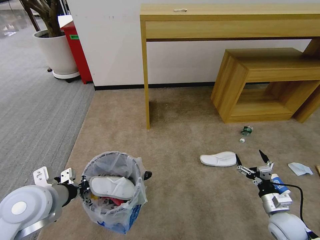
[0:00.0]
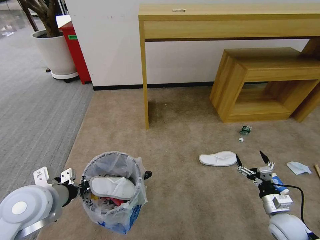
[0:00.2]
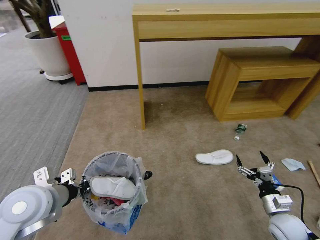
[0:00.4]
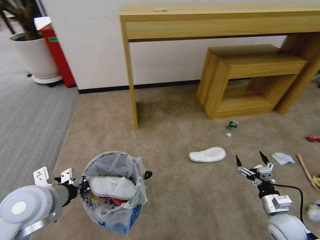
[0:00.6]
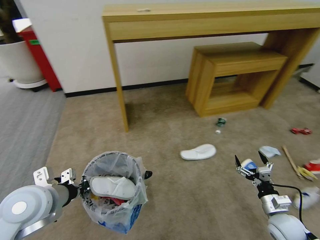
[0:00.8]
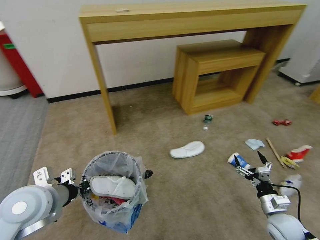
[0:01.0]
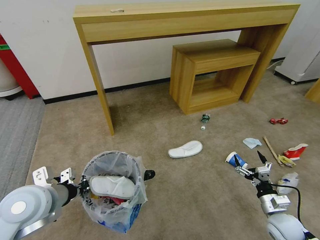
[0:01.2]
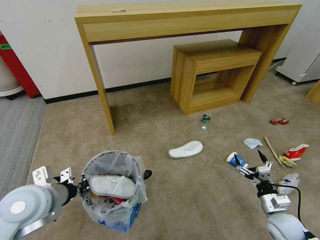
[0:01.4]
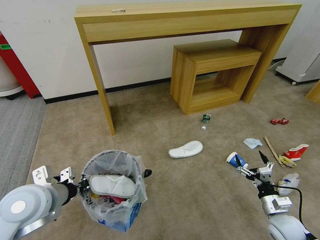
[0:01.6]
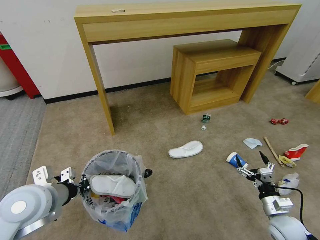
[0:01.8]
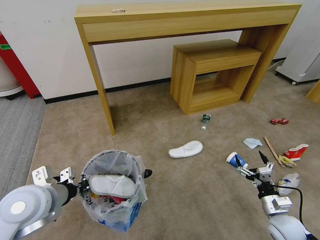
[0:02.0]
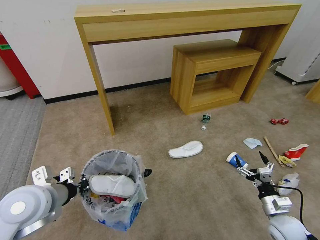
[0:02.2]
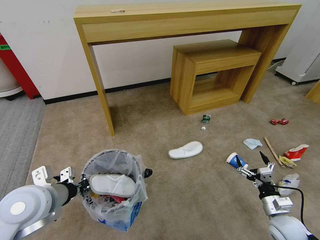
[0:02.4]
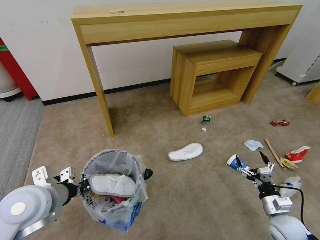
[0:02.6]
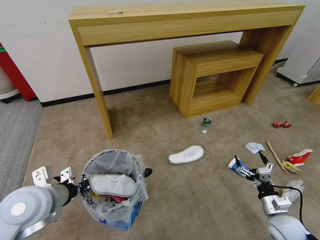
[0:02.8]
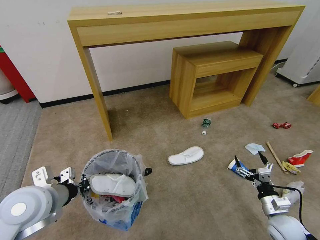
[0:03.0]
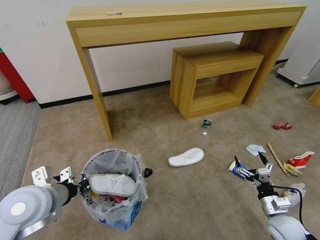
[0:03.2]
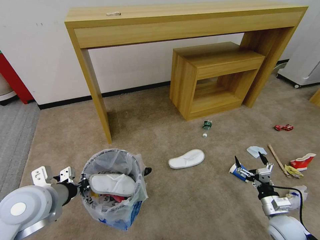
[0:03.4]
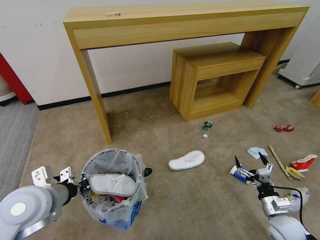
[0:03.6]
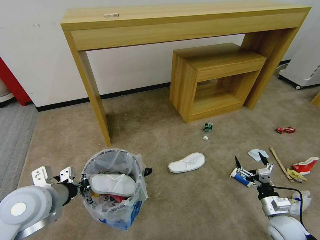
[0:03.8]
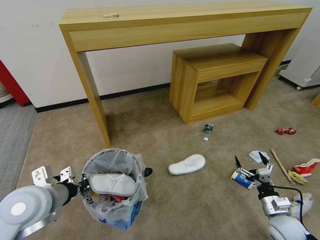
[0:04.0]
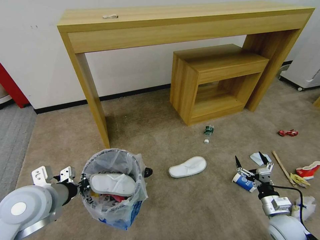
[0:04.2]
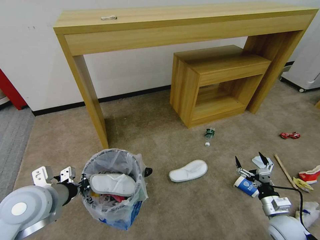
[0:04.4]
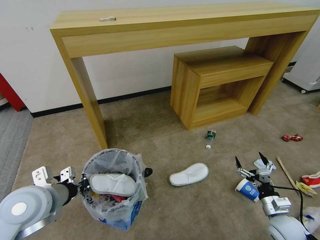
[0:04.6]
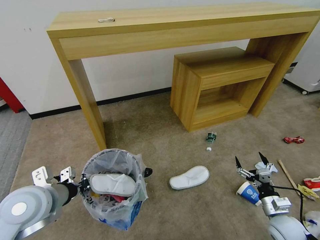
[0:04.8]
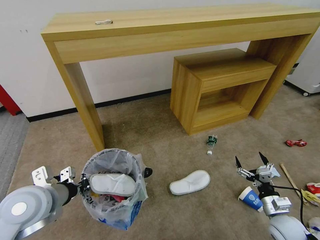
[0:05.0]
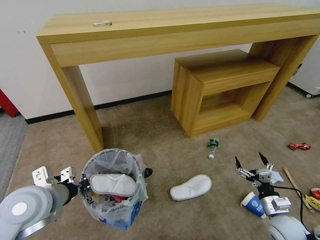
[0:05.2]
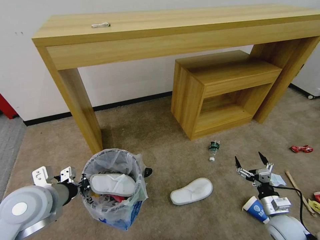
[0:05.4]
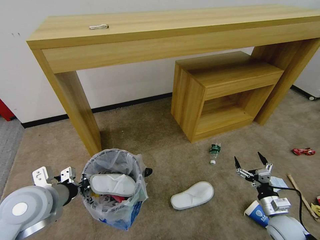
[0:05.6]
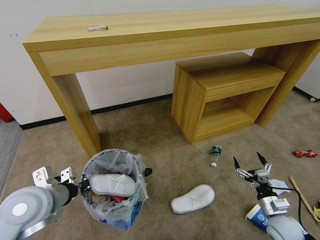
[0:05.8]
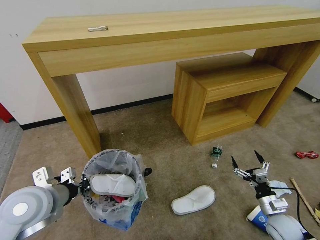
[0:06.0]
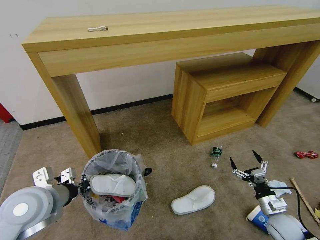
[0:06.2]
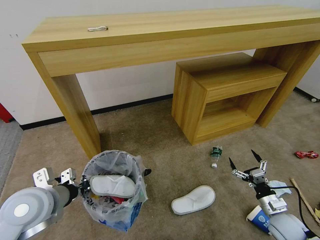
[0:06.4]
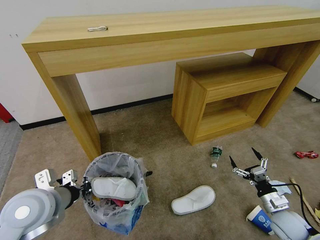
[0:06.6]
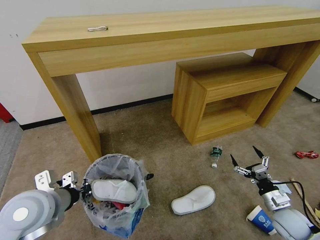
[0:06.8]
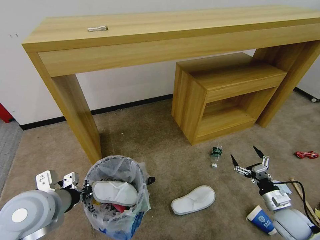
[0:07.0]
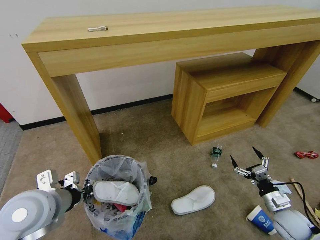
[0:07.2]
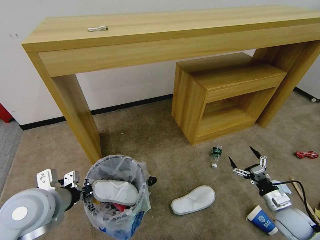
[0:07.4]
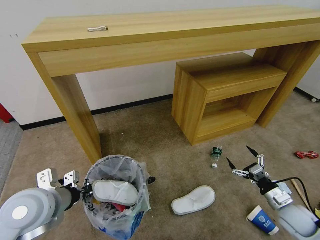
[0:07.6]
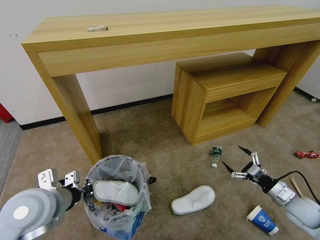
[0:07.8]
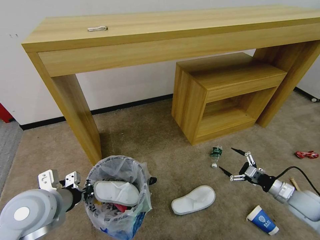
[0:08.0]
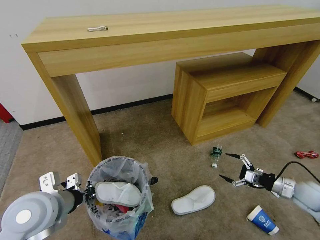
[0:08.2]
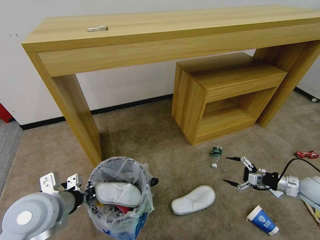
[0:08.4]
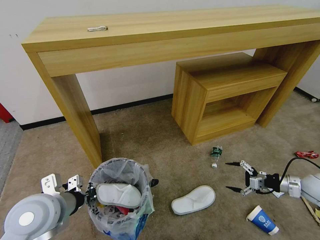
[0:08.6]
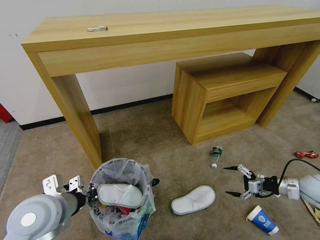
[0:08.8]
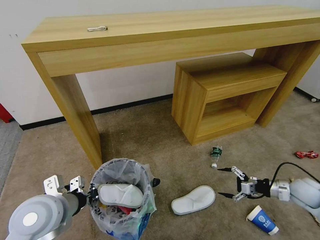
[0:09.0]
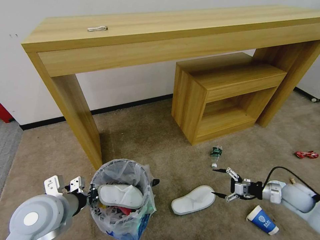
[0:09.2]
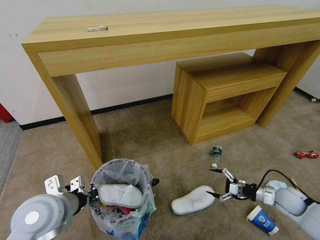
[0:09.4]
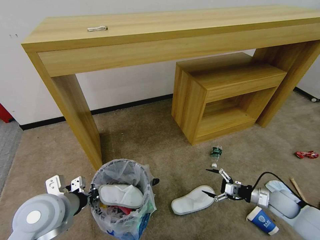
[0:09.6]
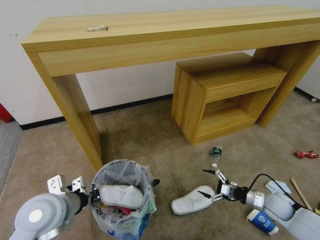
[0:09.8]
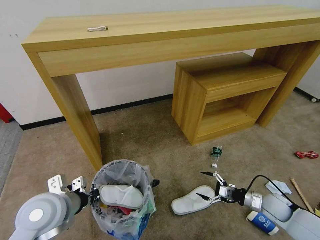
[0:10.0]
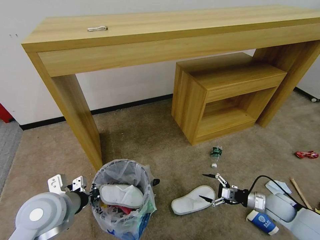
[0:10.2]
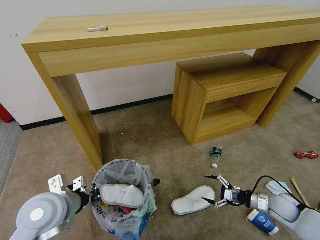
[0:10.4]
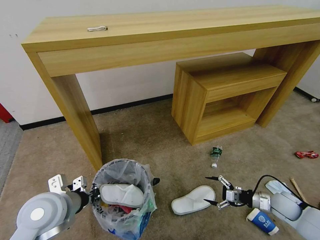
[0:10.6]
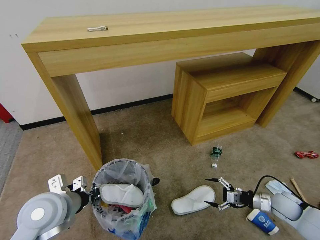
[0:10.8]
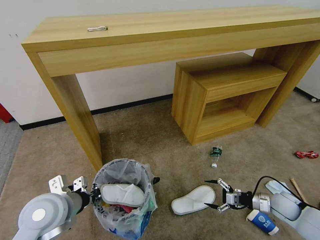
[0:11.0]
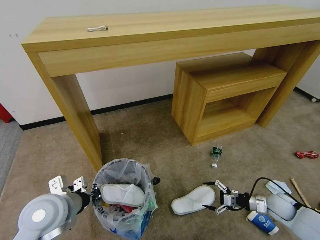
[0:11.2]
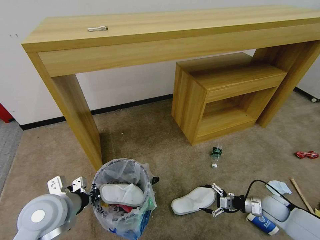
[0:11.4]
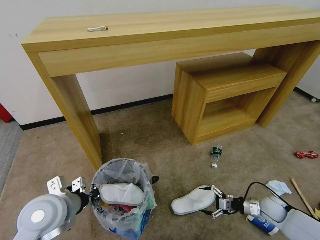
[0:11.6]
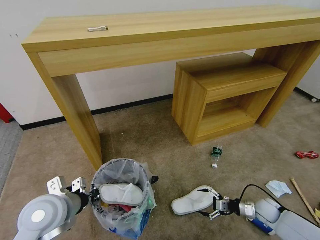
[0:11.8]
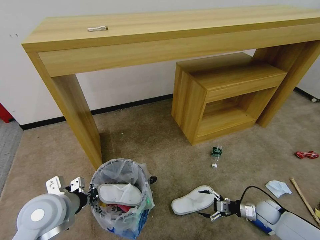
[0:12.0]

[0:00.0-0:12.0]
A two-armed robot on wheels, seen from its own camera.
Task of the whole recording: Pick up the trash bin and place the garbage on the floor into it.
0:01.6 to 0:03.0: Neither gripper changes place.
0:06.0 to 0:07.6: The right gripper ends up about 5 cm from where it was.
0:07.6 to 0:09.0: The right gripper heads forward, to the right and upward, covering roughly 10 cm.
0:09.0 to 0:10.4: The right gripper heads downward and to the left, covering approximately 10 cm.
0:10.4 to 0:12.0: The right gripper moves downward, approximately 10 cm.

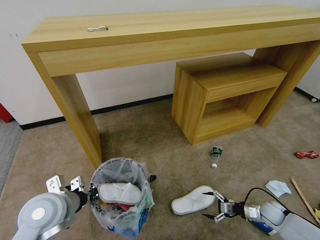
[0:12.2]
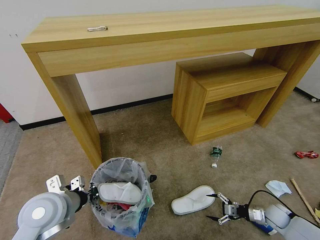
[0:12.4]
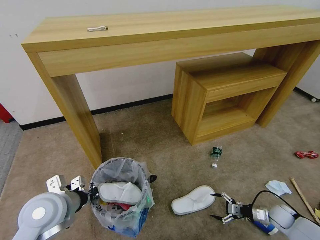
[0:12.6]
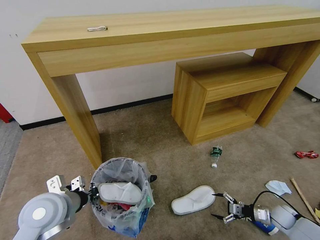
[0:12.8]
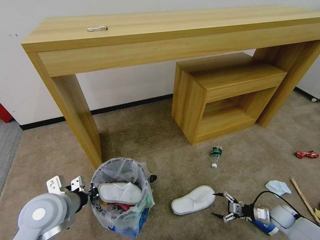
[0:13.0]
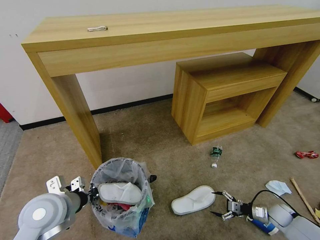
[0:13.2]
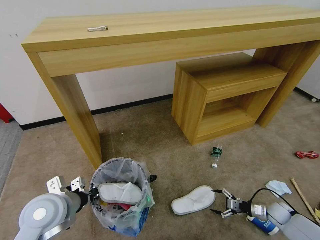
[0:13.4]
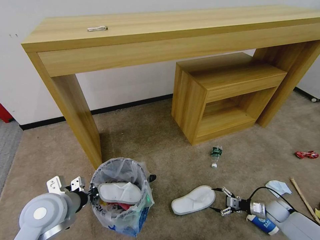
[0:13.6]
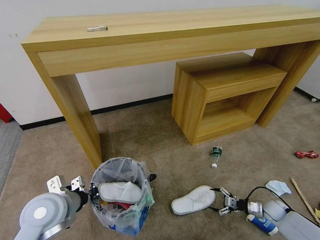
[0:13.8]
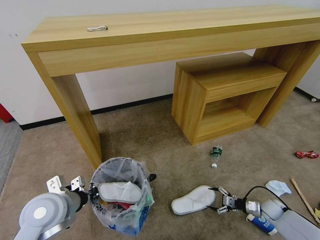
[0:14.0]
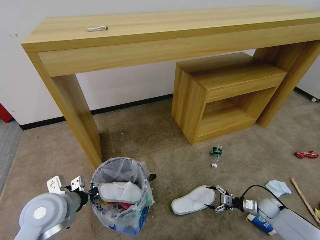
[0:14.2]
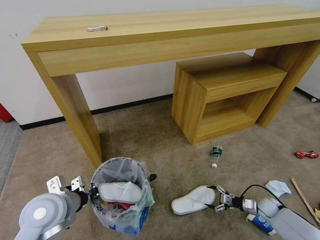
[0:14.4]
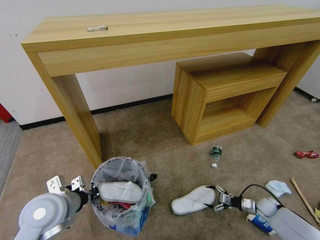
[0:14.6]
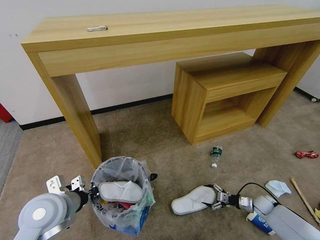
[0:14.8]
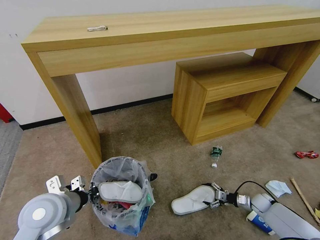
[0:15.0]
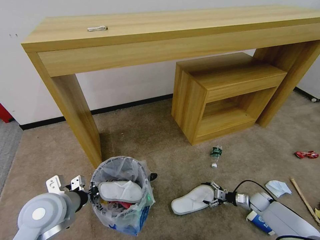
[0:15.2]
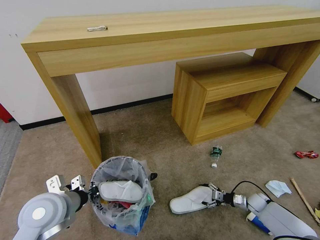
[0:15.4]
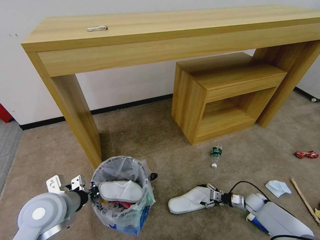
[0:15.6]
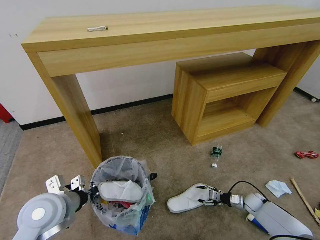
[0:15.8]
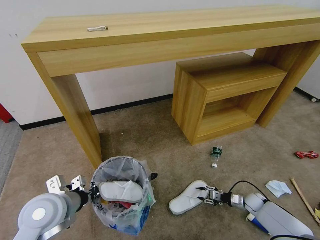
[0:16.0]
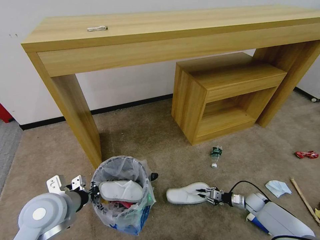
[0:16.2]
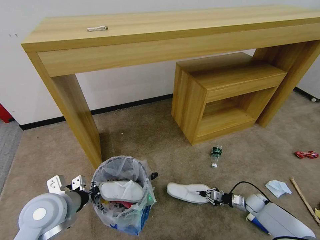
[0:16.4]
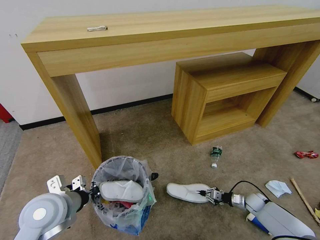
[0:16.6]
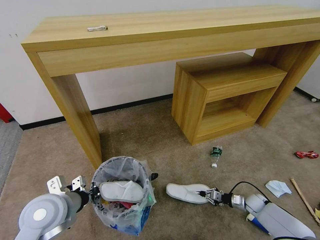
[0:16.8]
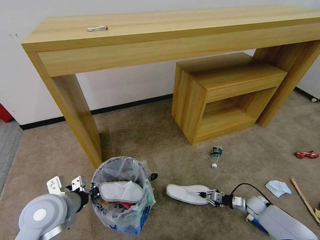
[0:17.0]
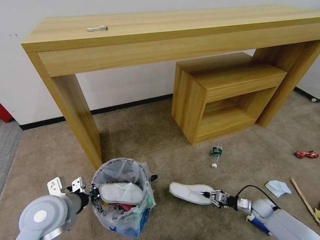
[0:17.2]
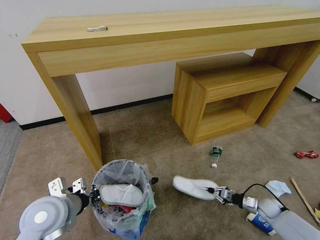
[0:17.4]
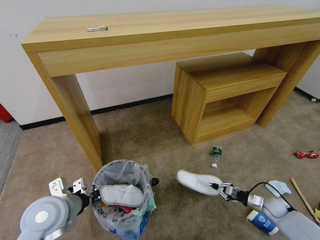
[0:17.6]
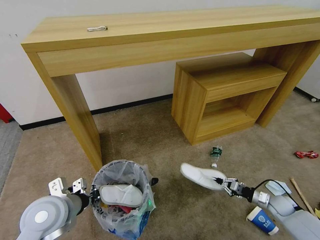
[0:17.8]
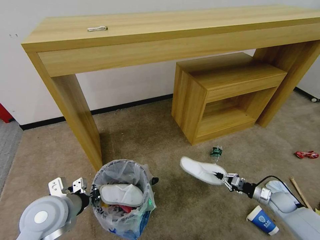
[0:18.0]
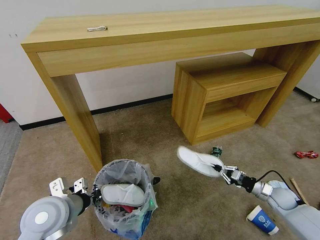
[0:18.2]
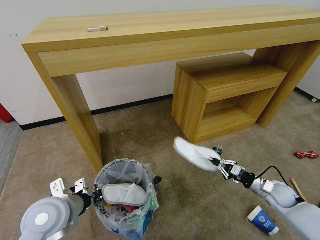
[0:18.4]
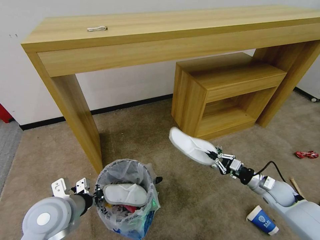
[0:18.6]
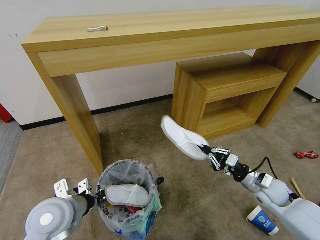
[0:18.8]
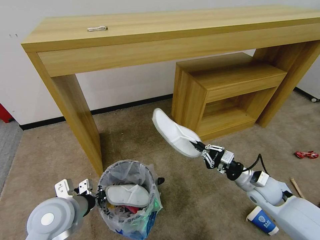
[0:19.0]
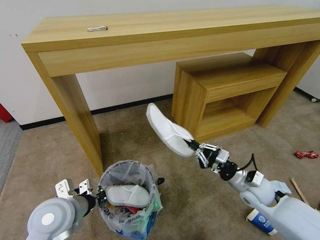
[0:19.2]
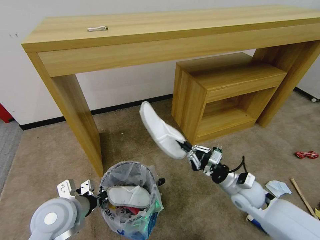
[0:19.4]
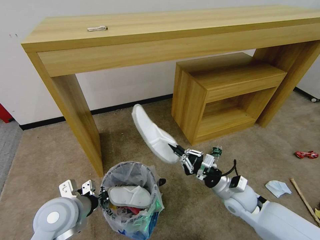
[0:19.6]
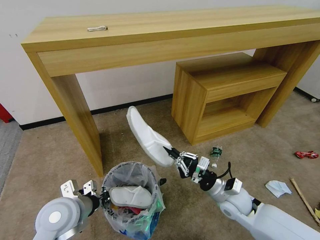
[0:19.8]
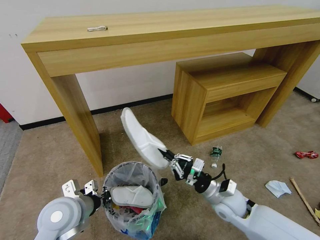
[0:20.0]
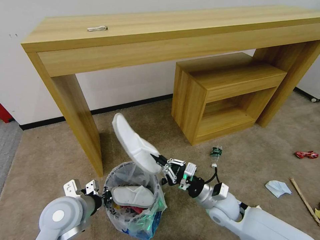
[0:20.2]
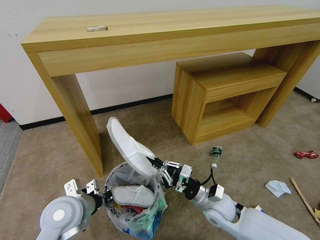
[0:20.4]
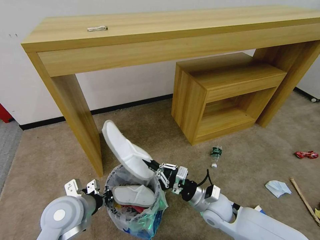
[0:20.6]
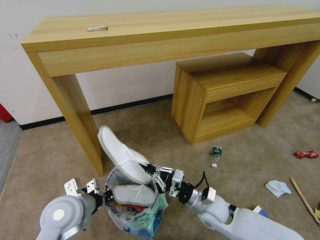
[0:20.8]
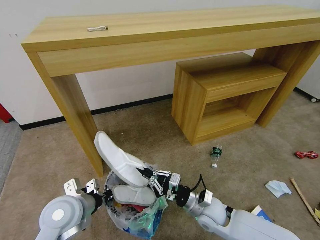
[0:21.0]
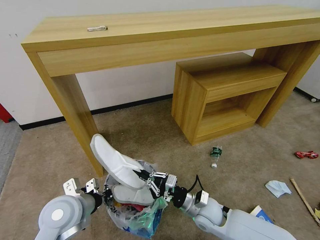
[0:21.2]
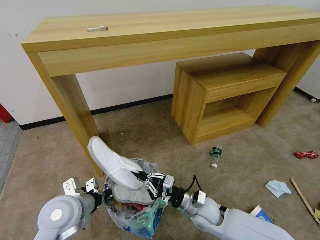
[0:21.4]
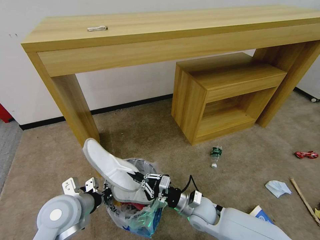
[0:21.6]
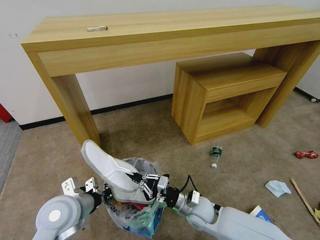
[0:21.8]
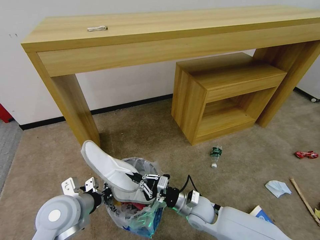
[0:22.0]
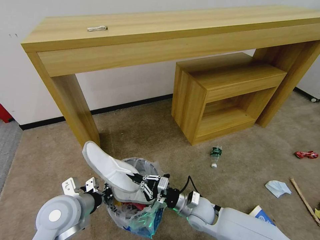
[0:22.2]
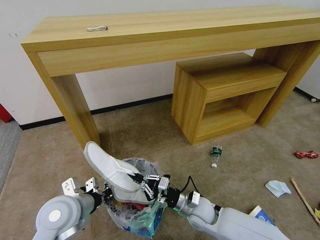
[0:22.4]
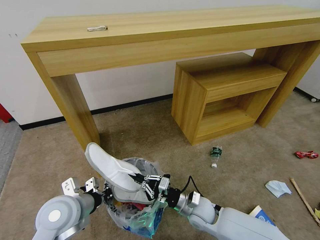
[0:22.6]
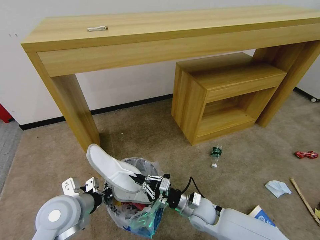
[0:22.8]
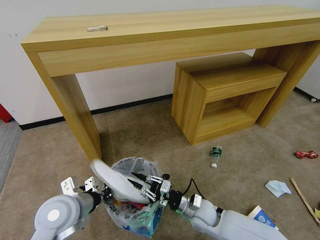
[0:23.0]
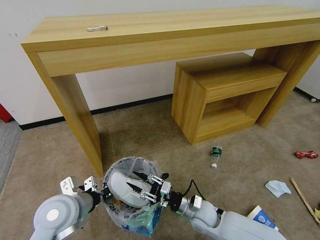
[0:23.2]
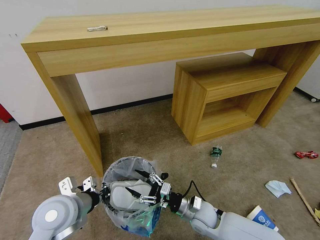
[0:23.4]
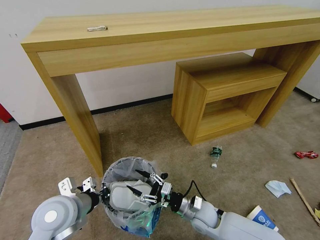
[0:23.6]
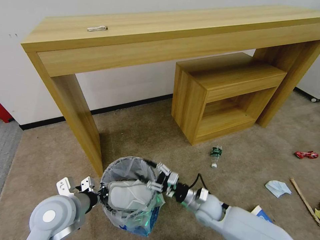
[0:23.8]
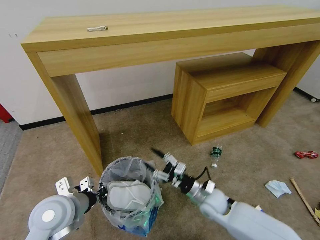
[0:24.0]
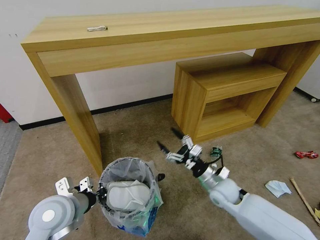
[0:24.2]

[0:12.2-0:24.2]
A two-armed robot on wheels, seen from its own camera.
Task of the whole recording: Pick up the trash bin and place the garbage on the floor into it.
0:12.2 to 0:13.8: There are only small adjustments of the grippers.
0:13.8 to 0:15.2: The right gripper moves approximately 5 cm.
0:15.2 to 0:16.6: The right gripper closes up.
0:16.6 to 0:18.2: The right gripper shifts some 10 cm upward.
0:18.2 to 0:19.8: The right gripper travels to the left and upward by roughly 25 cm.
0:19.8 to 0:21.2: The right gripper is displaced to the left by about 10 cm.
0:21.2 to 0:22.6: There are only small adjustments of the grippers.
0:22.6 to 0:24.2: The right gripper heads to the right, covering some 5 cm, and opens up.
